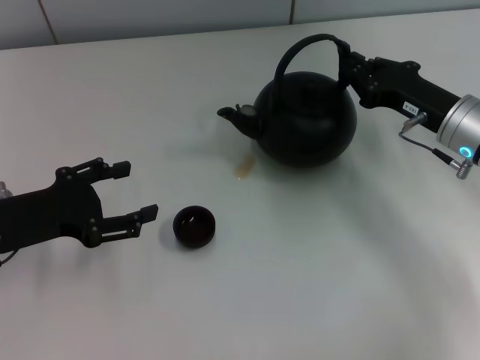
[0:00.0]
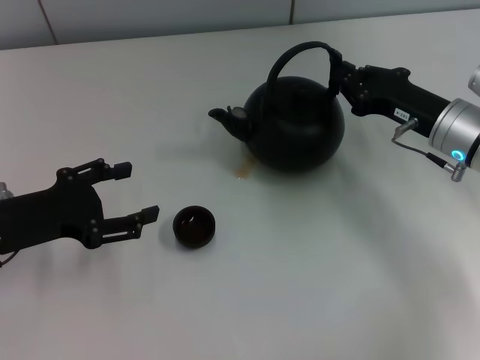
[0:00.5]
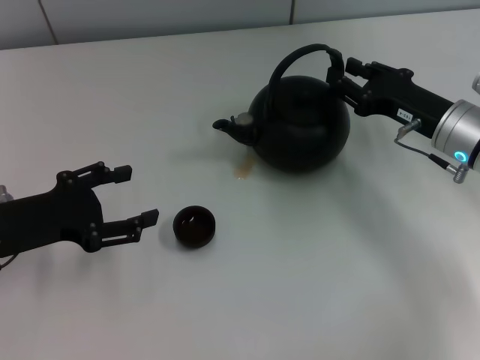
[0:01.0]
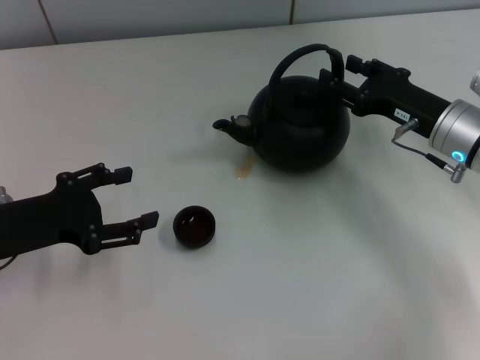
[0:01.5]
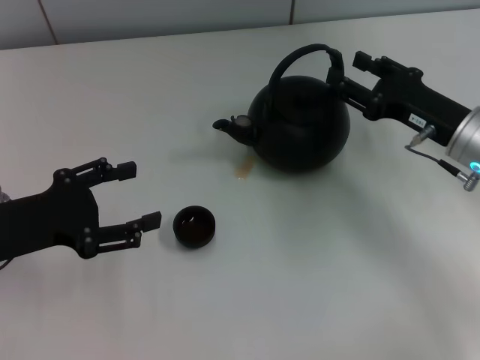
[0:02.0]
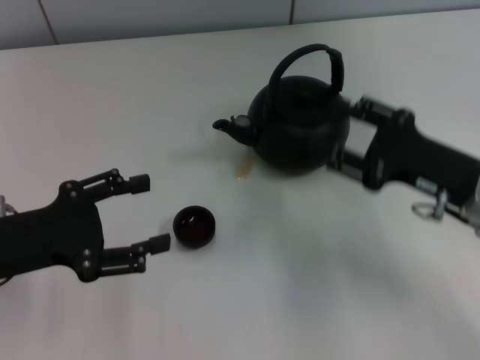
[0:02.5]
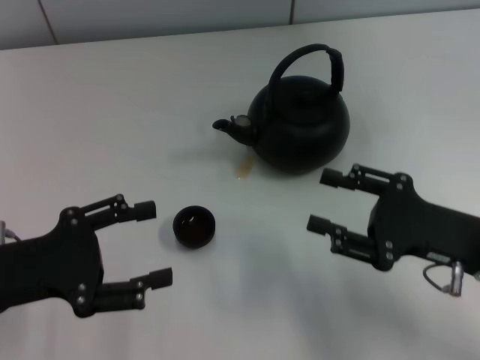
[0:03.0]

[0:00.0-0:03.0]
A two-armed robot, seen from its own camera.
Task of the whole recording: Grasp the handle of the teapot with one hand and pour tea into the teacup.
0:00.0 to 0:01.5: The right gripper opens.
0:01.5 to 0:03.0: The right gripper shifts some 10 cm backward.

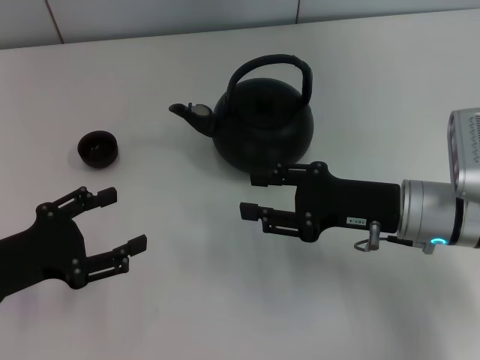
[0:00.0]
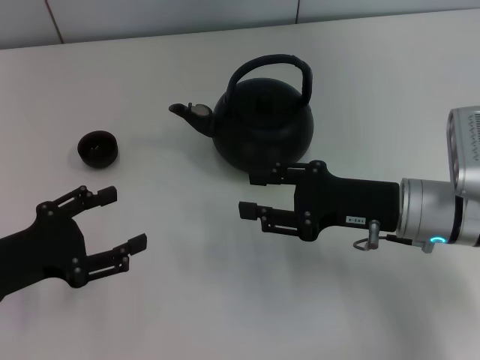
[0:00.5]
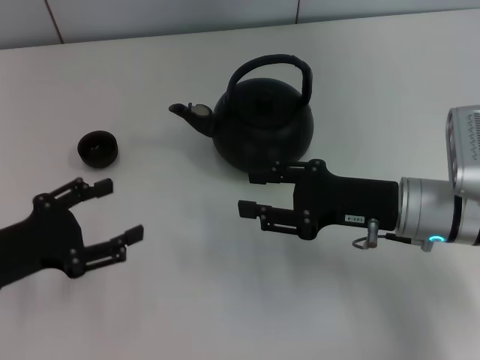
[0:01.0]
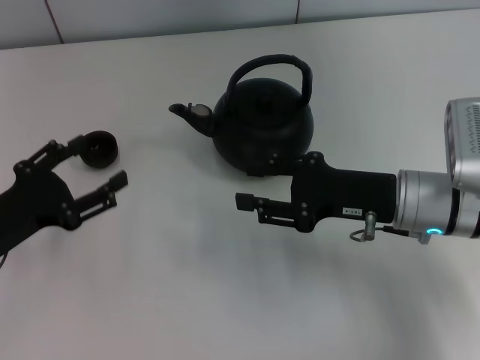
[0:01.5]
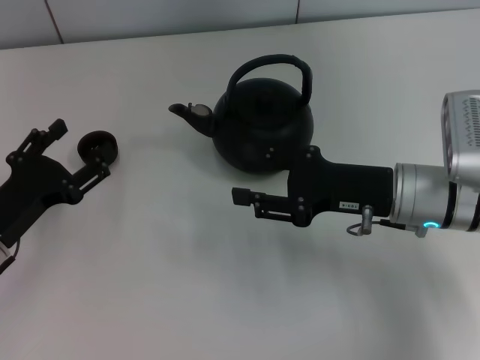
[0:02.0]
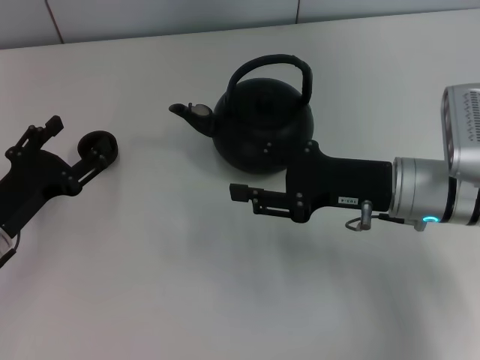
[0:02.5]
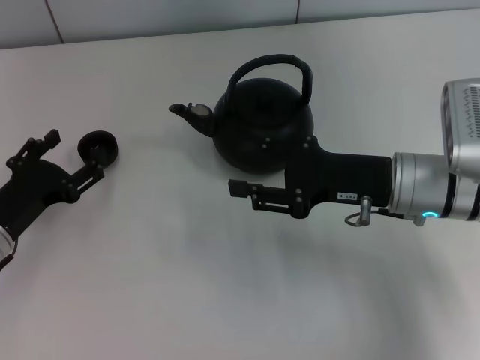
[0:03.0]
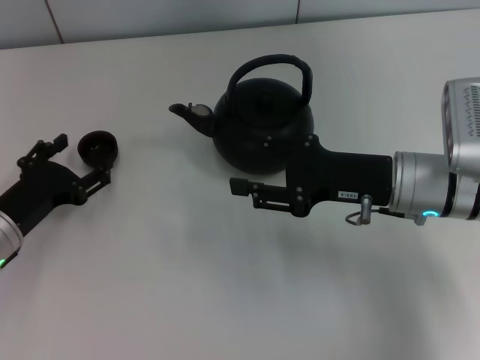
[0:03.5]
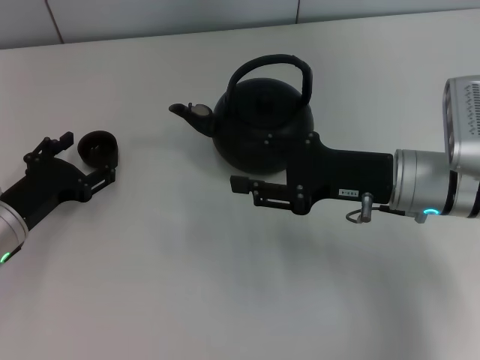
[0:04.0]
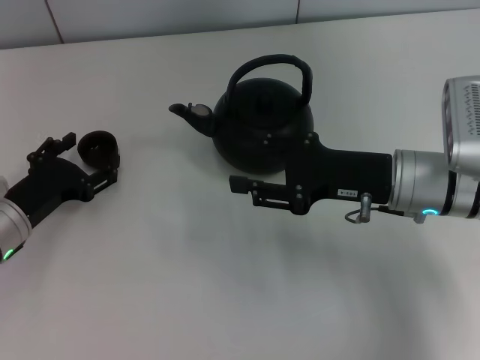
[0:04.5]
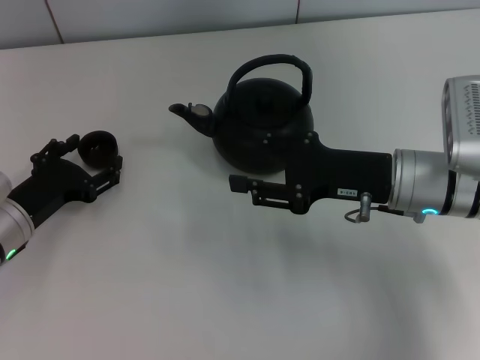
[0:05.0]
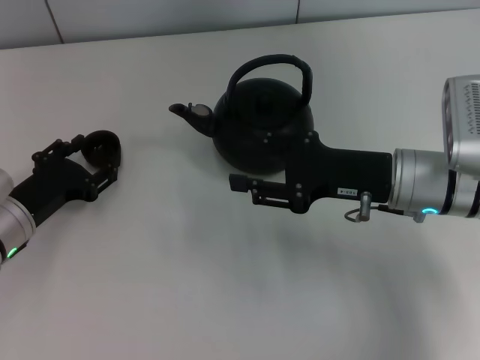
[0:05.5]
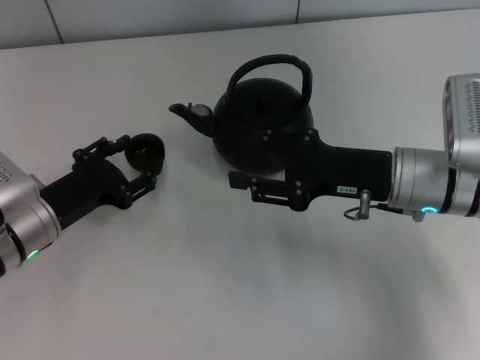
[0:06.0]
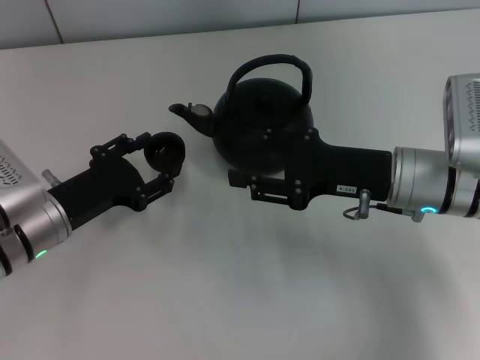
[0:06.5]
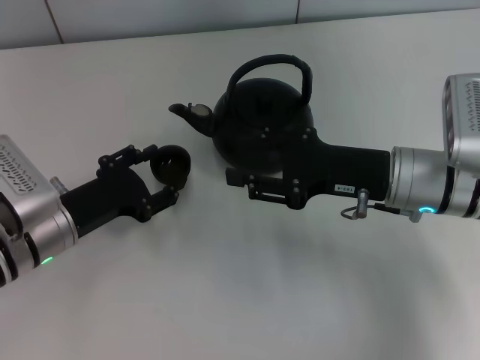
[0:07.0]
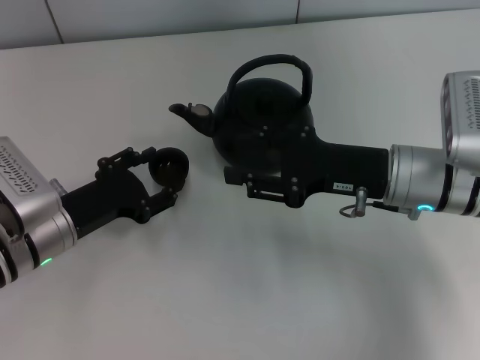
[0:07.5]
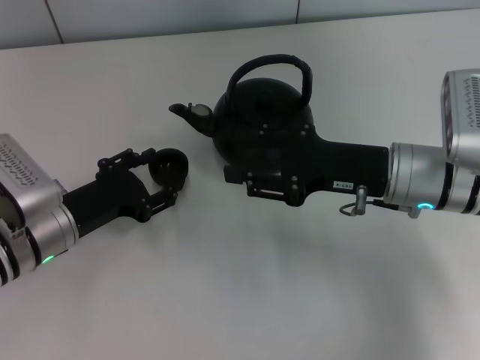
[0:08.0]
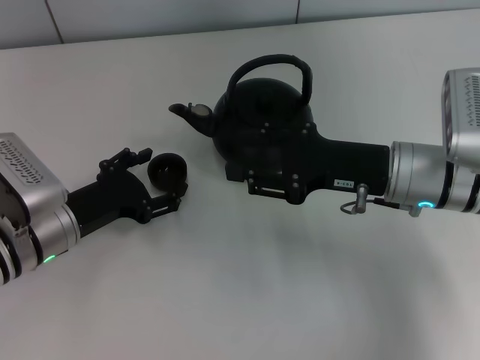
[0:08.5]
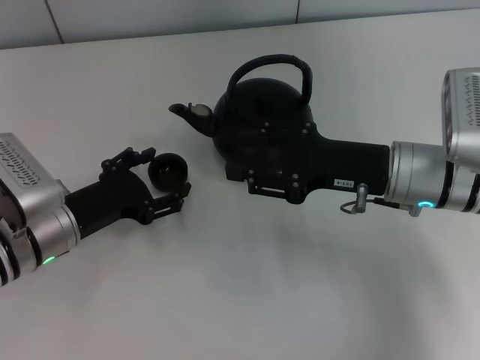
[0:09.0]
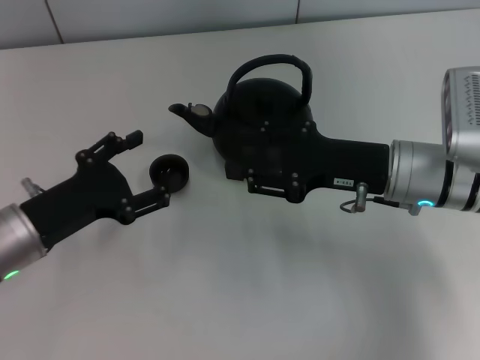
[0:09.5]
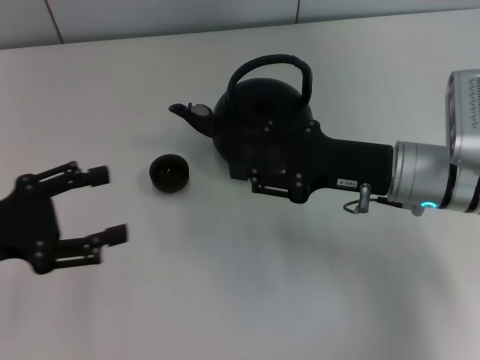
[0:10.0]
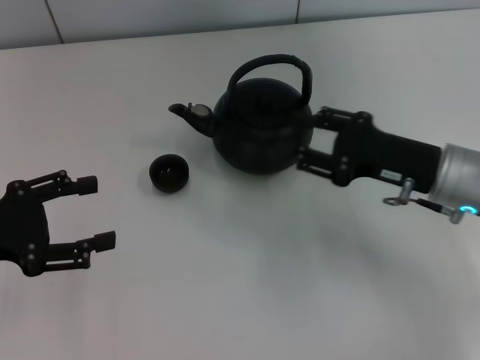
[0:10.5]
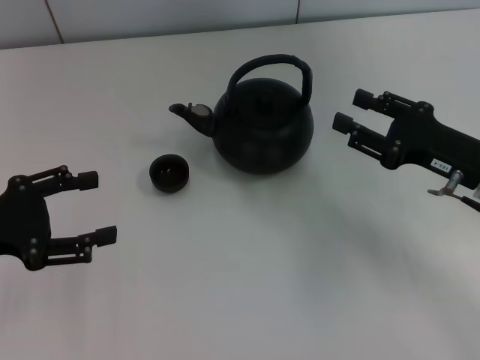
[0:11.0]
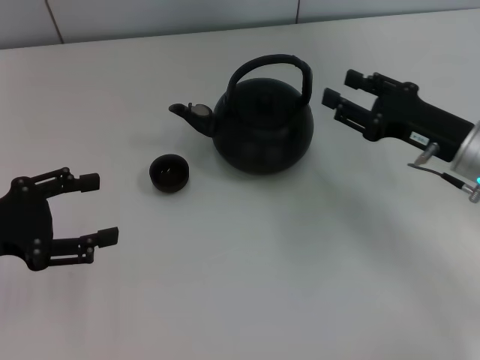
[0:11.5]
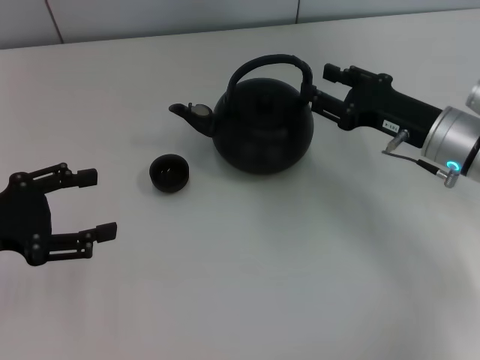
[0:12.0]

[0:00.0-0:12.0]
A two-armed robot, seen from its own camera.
Task of the whole recording: Grasp the handle of the teapot with one hand and pour tea into the teacup.
Step, 0:00.0 to 0:06.0: Pick up the teacup with the left gripper.
Step, 0:06.5 to 0:10.0: Place the teacup in the center of view with the left gripper.
0:02.0 to 0:04.0: The grippers make only small movements.
0:04.0 to 0:06.0: The left gripper closes its fingers.
0:06.0 to 0:08.0: The left gripper opens up.
0:08.0 to 0:10.0: The left gripper moves to the left and upward, roughly 10 cm, and opens up.
0:10.0 to 0:12.0: The right gripper ends up approximately 5 cm from where it was.

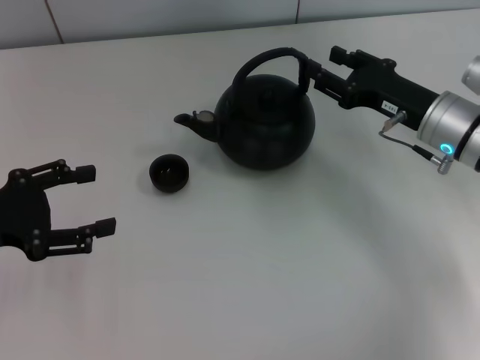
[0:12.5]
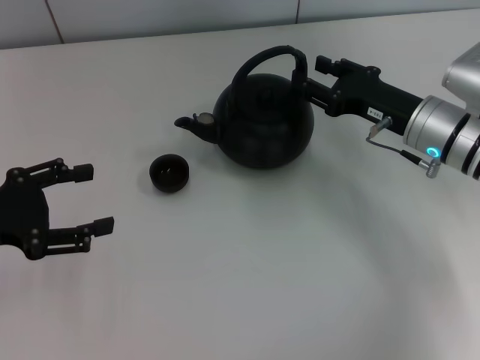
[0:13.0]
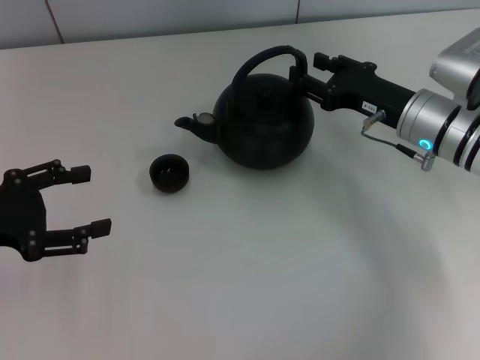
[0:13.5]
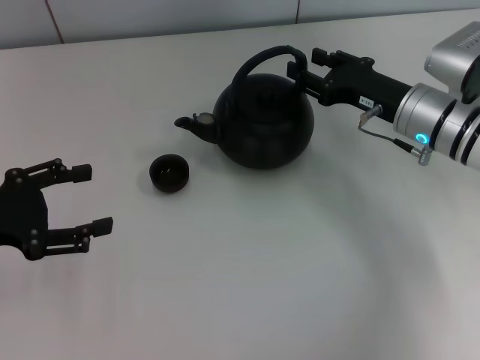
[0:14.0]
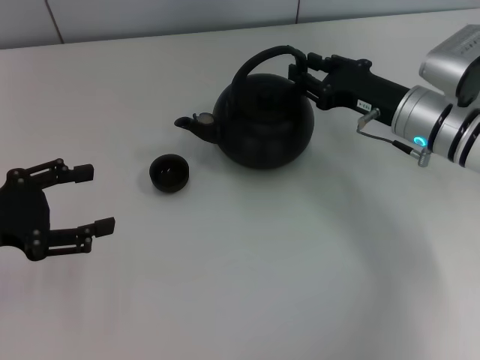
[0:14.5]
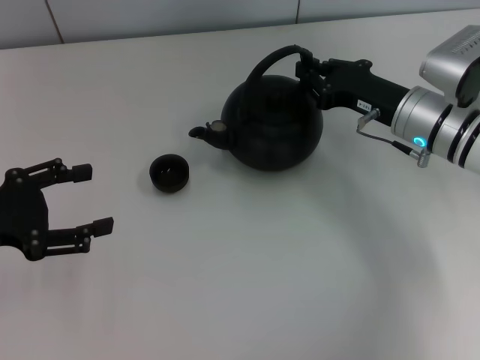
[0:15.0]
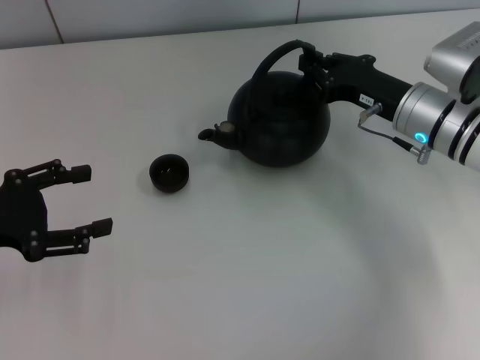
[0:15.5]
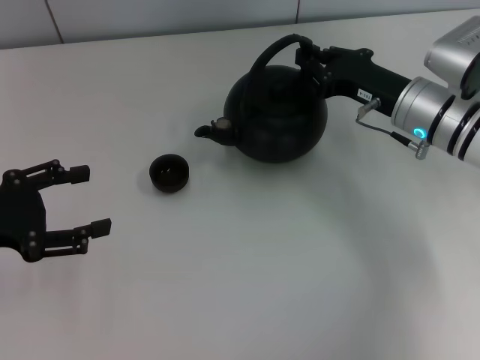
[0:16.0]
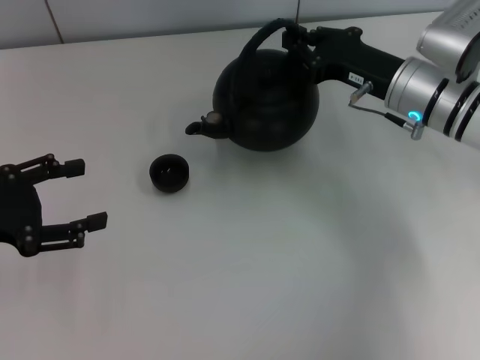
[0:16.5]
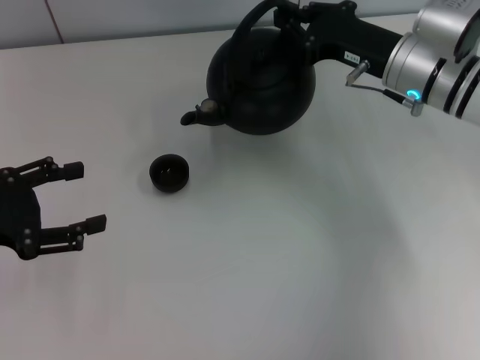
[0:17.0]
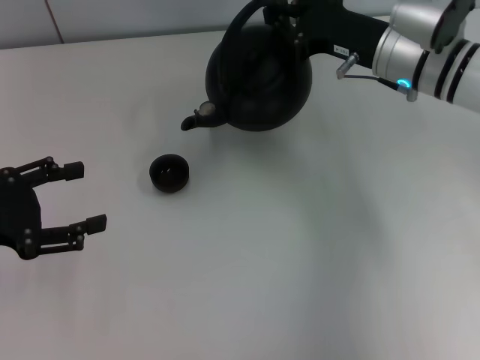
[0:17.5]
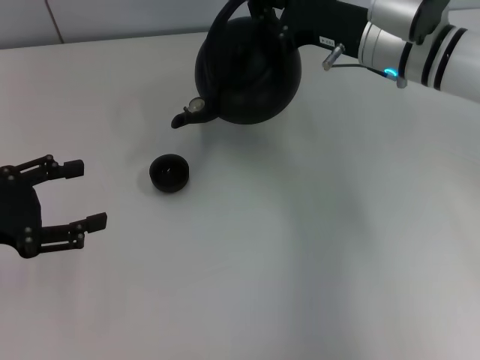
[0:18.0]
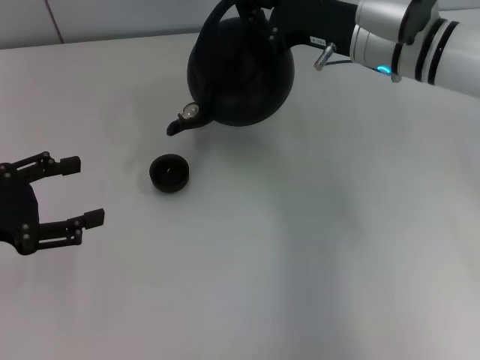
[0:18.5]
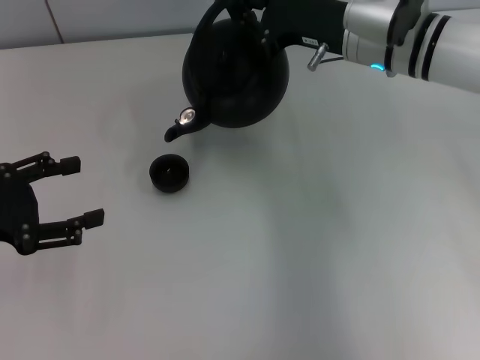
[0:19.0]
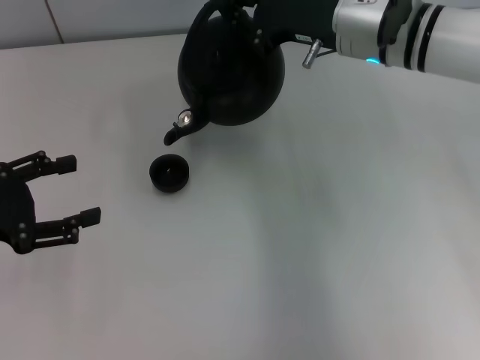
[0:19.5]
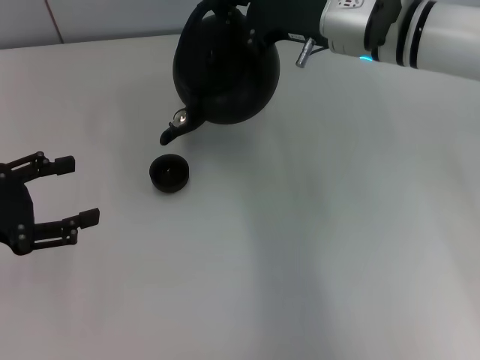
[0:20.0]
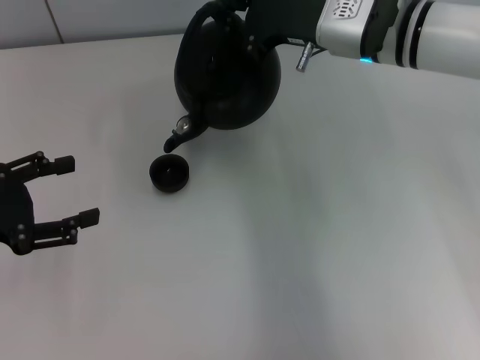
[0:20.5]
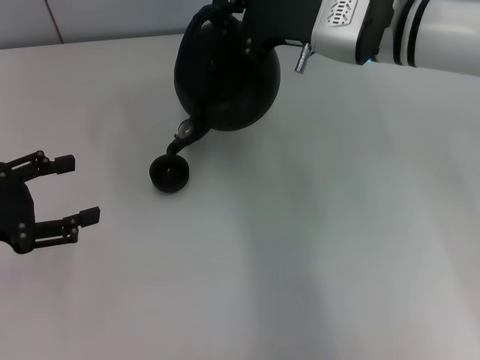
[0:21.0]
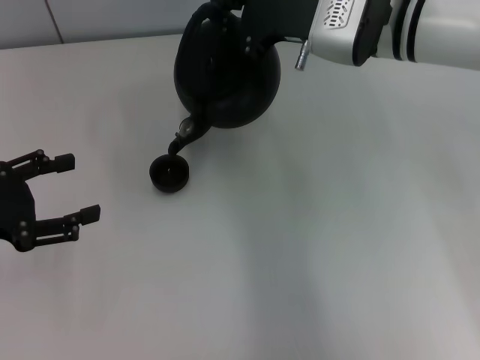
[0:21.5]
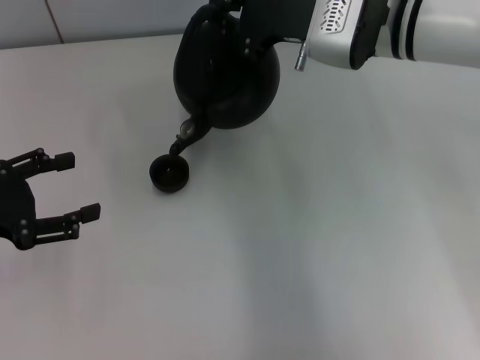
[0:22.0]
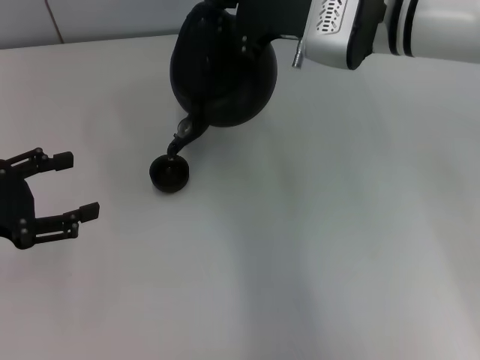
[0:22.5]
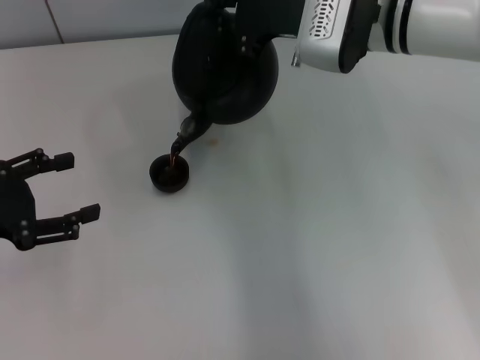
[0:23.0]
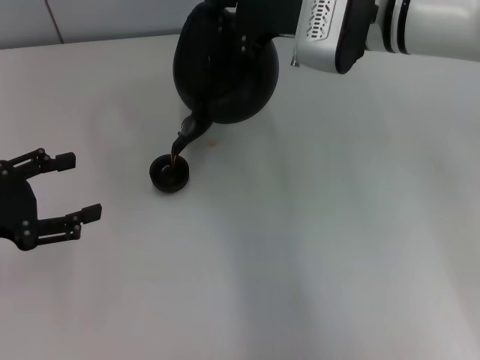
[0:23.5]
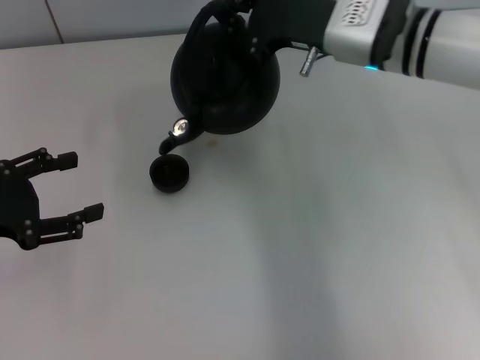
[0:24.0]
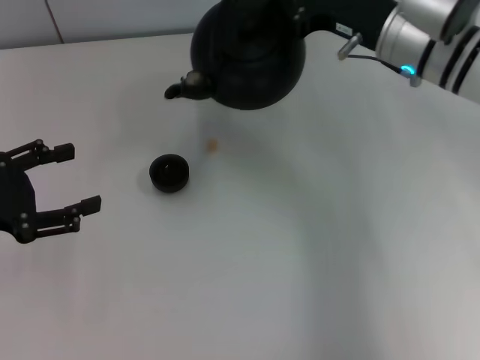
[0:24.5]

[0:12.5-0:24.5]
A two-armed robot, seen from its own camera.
Task of the whole recording: Grasp the handle of the teapot with one hand and pour tea into the teacup.
Step, 0:12.5 to 0:16.0: Pick up the teapot with the right gripper.
0:12.5 to 0:14.5: The grippers move only a little.
0:14.5 to 0:16.5: The right gripper closes.
0:16.5 to 0:18.5: The right gripper moves about 5 cm.
0:18.5 to 0:20.5: The grippers make only small movements.
0:20.5 to 0:22.5: The grippers stay close to where they were, moving slightly.
0:22.5 to 0:24.5: The right gripper goes approximately 5 cm to the right.
